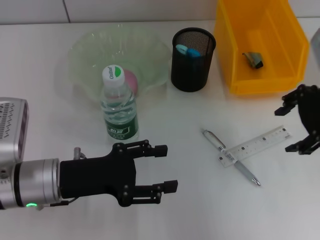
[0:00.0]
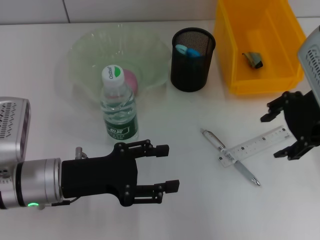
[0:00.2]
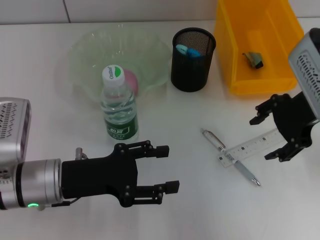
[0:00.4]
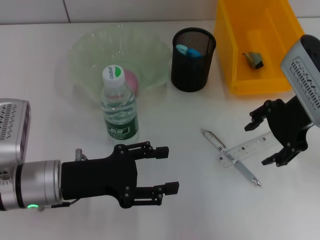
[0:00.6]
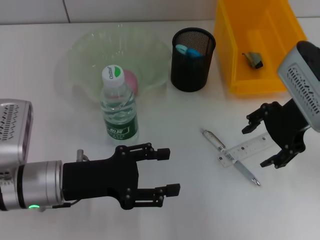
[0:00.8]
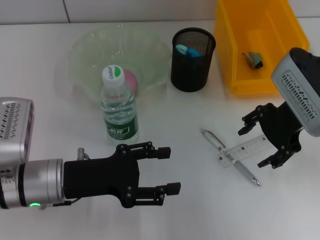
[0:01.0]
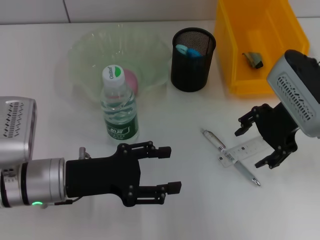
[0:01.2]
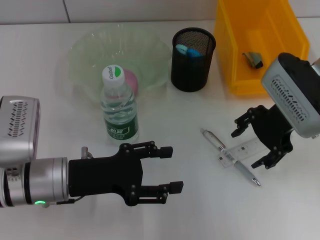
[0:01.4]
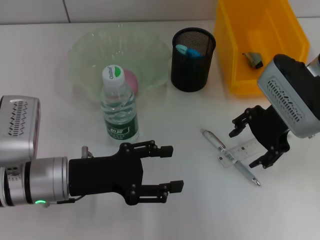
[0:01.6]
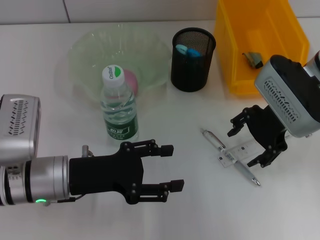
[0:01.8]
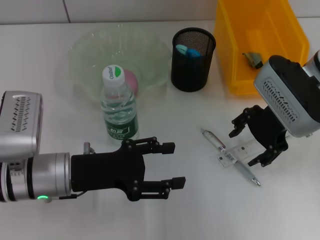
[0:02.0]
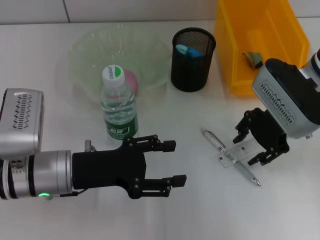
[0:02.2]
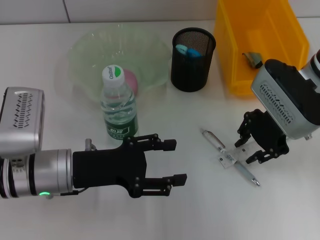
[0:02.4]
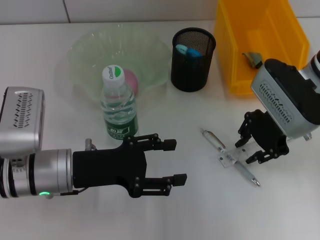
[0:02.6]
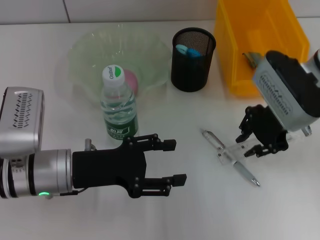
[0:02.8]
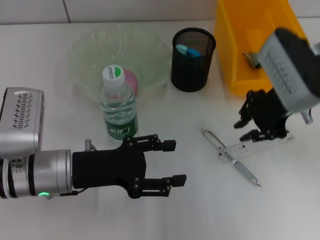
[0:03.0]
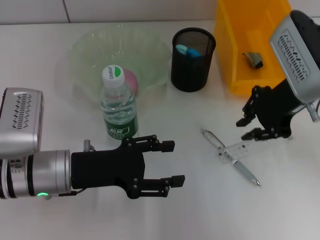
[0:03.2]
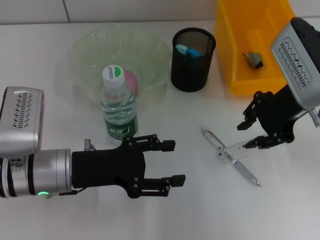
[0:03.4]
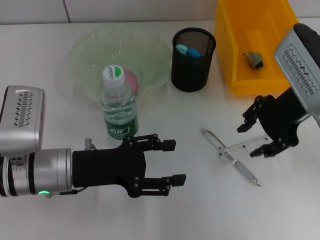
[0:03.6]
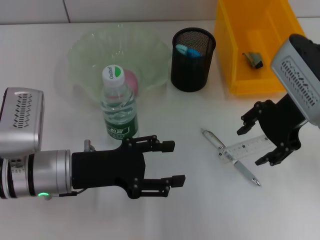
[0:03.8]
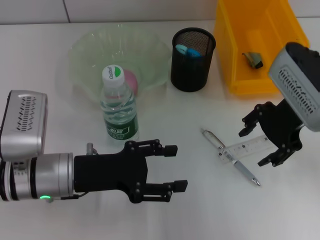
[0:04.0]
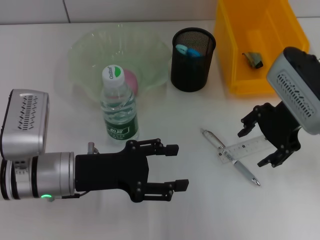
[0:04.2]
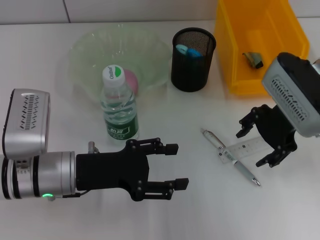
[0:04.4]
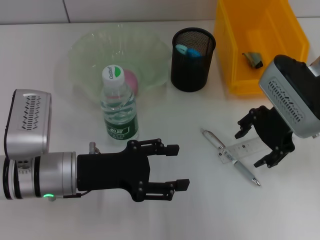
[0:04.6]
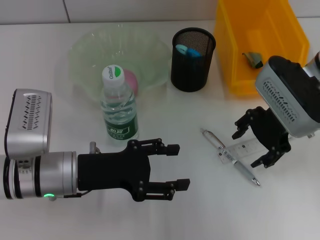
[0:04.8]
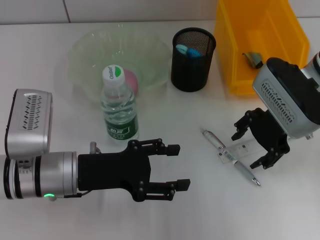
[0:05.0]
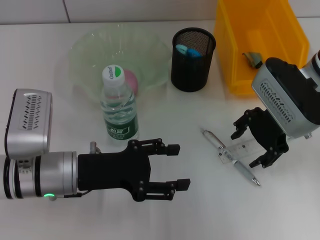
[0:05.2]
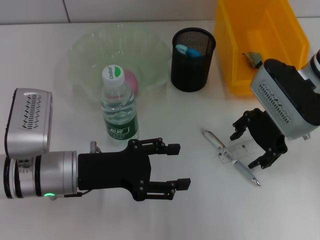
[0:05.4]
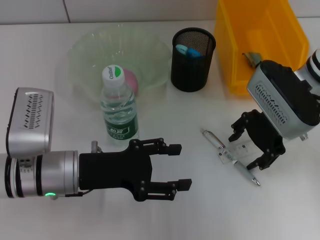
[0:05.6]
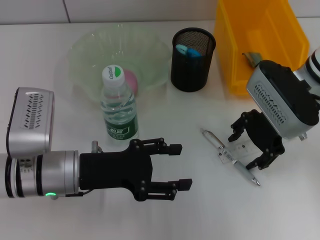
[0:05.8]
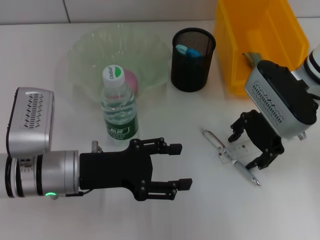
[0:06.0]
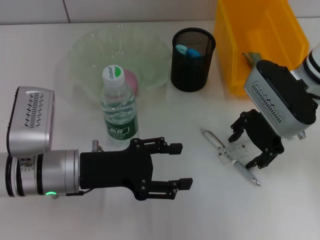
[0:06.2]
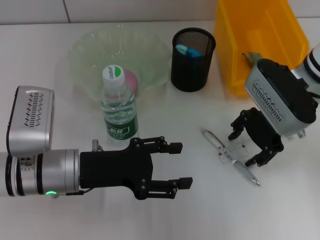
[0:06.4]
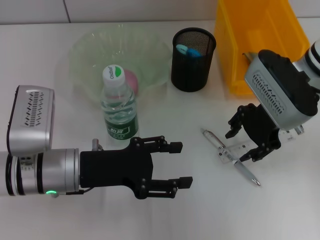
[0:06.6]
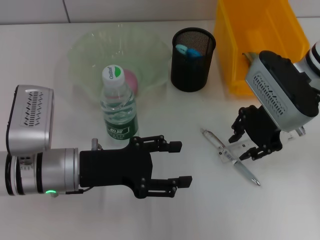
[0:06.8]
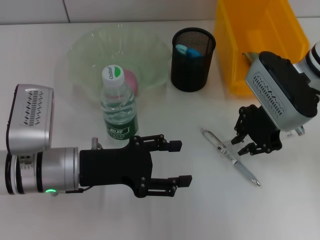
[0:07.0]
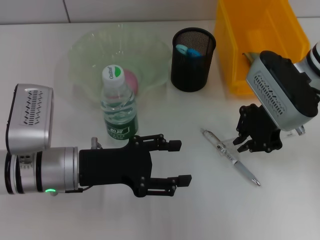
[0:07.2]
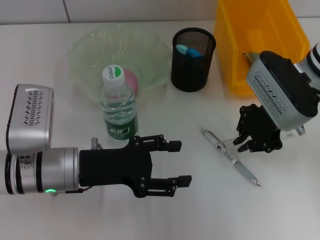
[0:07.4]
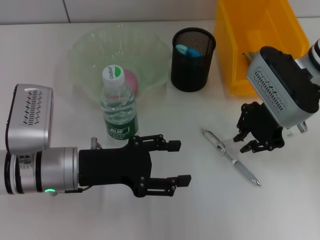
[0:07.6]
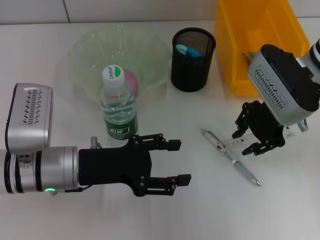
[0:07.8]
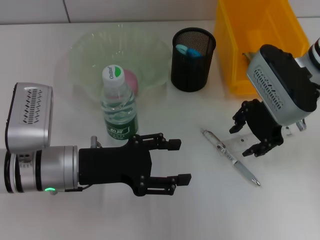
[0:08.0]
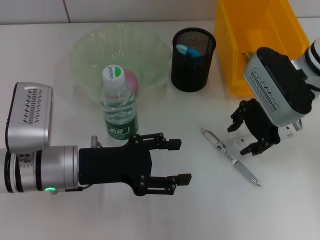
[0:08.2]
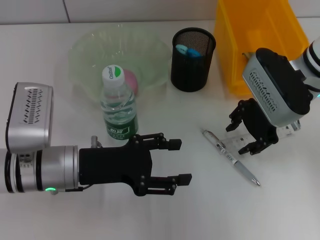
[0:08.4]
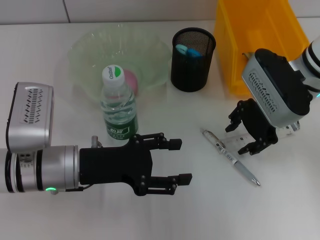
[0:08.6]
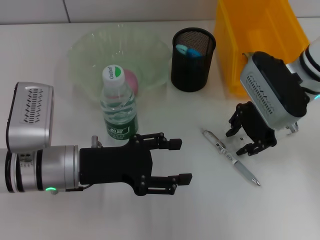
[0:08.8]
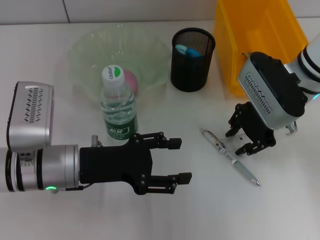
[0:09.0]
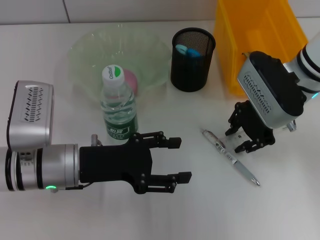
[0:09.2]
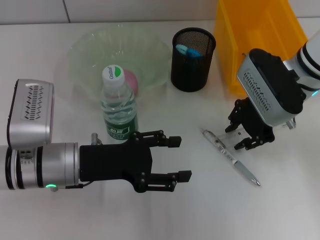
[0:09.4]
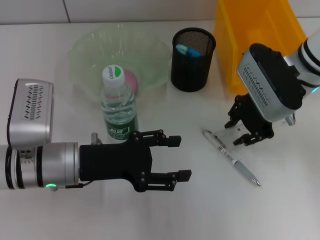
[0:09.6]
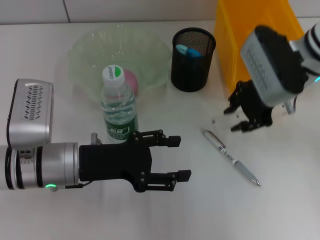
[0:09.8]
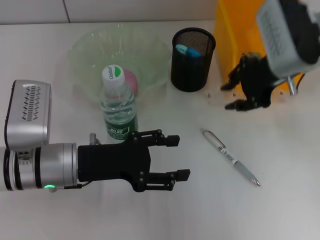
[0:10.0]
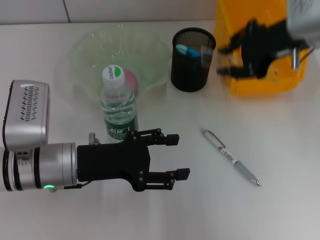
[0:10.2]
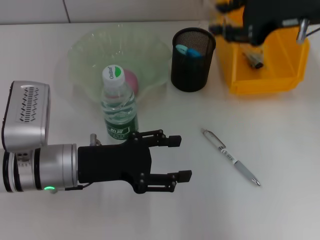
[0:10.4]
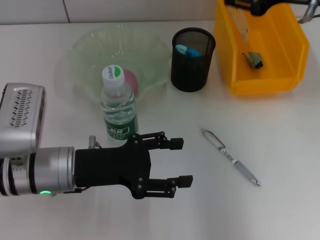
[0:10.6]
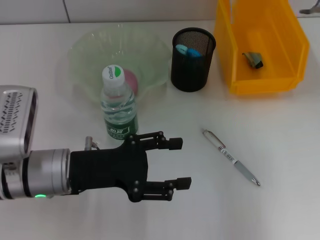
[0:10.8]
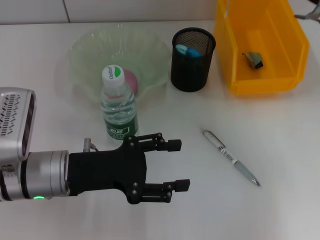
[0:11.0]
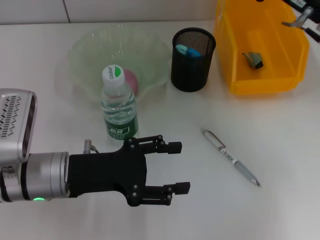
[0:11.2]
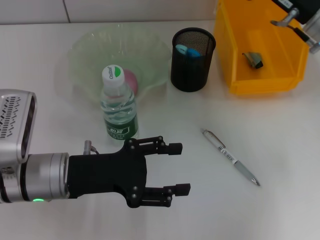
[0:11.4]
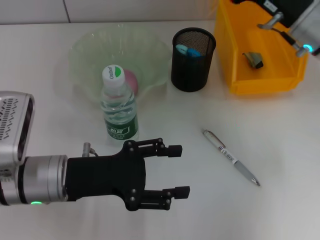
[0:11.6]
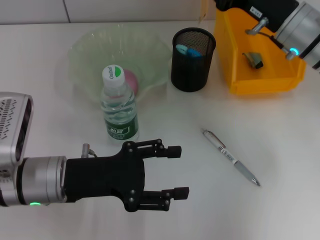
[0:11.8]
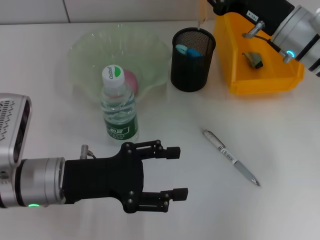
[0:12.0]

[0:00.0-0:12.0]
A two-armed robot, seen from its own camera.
Step, 0:00.0 to 0:09.2: Grab the ruler with the right hand.
0:00.0 to 0:01.6: The right gripper travels downward by approximately 5 cm.
0:01.6 to 0:03.0: The right gripper closes its fingers.
0:03.0 to 0:04.4: The right gripper opens up.
0:04.4 to 0:06.0: The grippers make only small movements.
0:06.0 to 0:07.6: The right gripper closes its fingers.
0:07.6 to 0:09.0: The right gripper opens its fingers.
0:09.0 to 0:10.4: The right gripper goes roughly 10 cm upward.
0:10.4 to 0:12.0: The right gripper shifts roughly 10 cm downward.

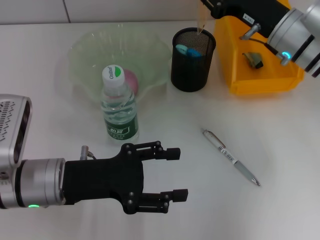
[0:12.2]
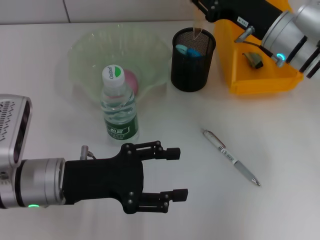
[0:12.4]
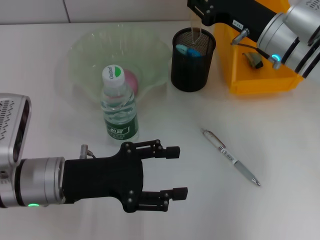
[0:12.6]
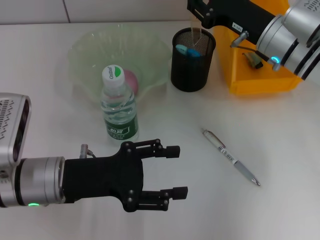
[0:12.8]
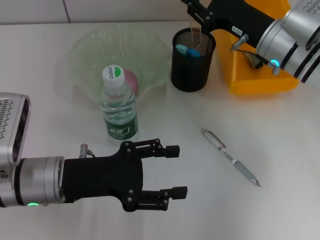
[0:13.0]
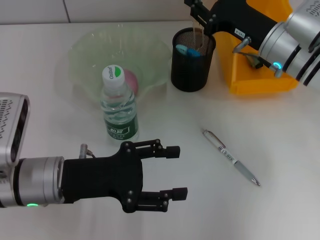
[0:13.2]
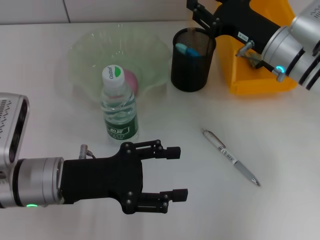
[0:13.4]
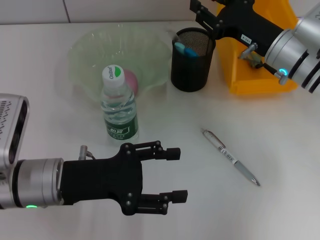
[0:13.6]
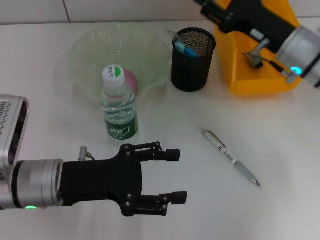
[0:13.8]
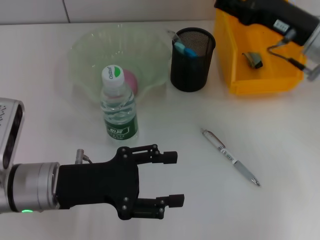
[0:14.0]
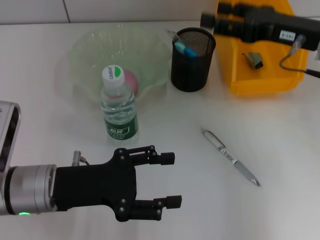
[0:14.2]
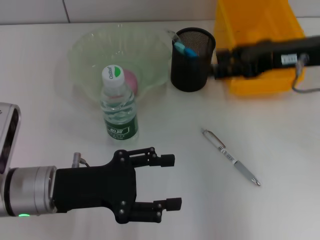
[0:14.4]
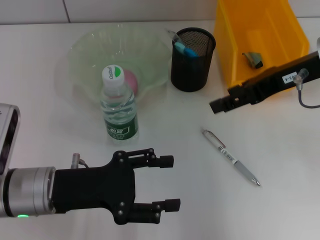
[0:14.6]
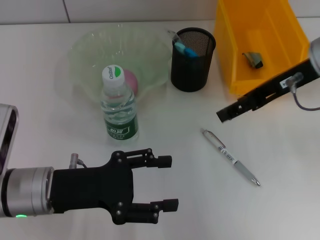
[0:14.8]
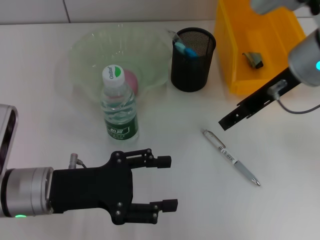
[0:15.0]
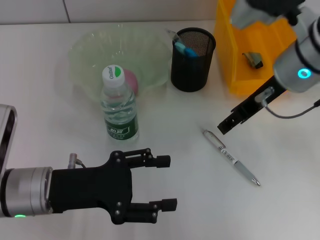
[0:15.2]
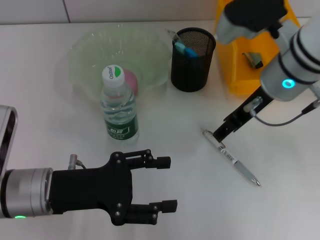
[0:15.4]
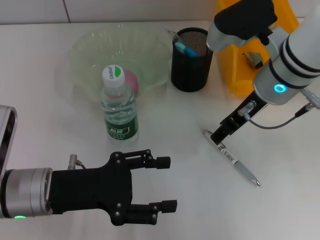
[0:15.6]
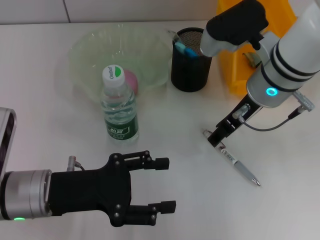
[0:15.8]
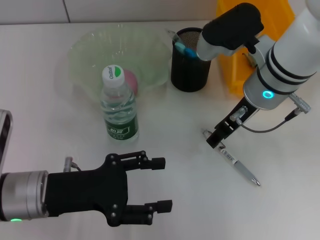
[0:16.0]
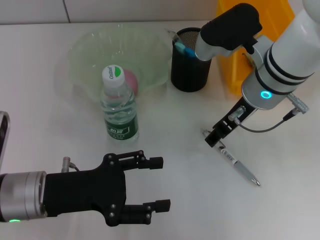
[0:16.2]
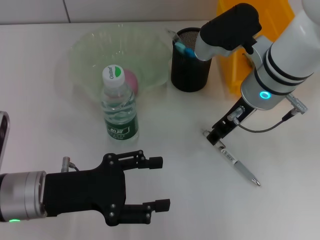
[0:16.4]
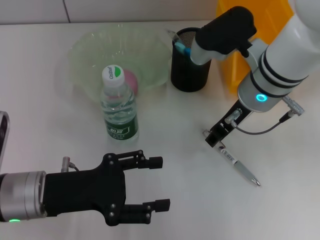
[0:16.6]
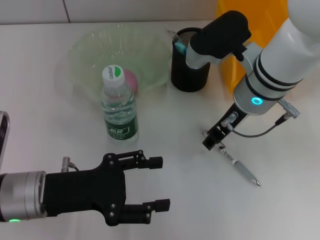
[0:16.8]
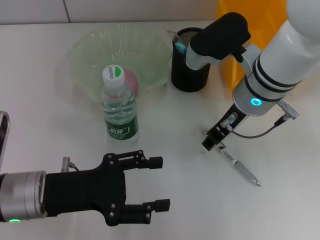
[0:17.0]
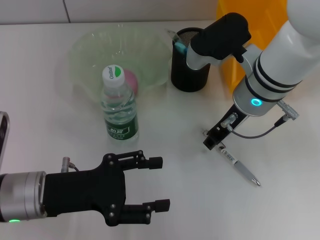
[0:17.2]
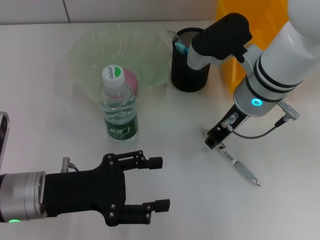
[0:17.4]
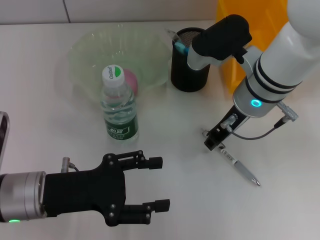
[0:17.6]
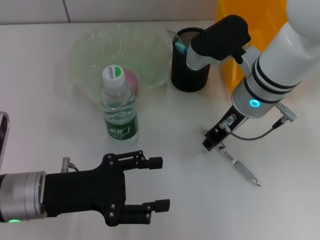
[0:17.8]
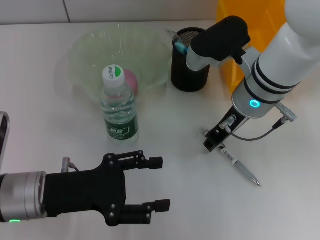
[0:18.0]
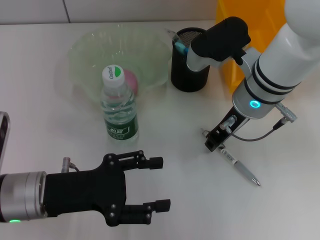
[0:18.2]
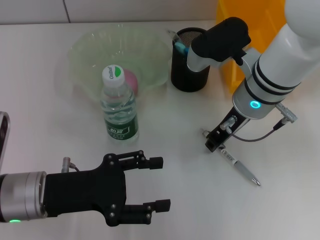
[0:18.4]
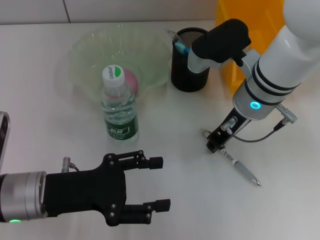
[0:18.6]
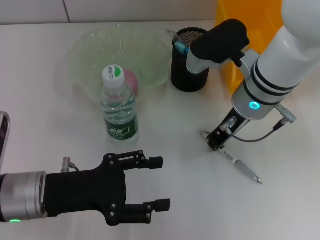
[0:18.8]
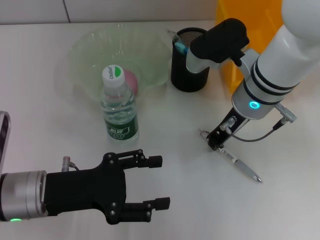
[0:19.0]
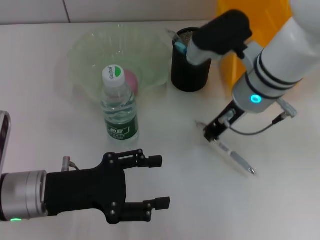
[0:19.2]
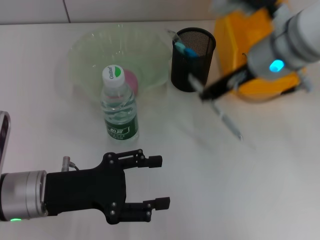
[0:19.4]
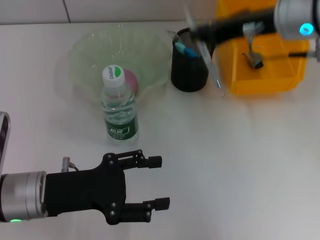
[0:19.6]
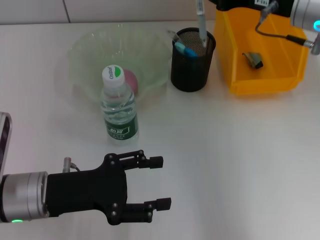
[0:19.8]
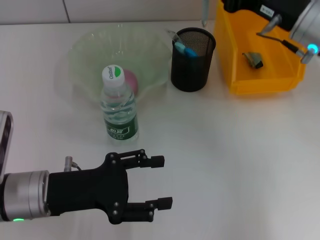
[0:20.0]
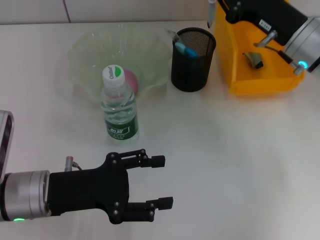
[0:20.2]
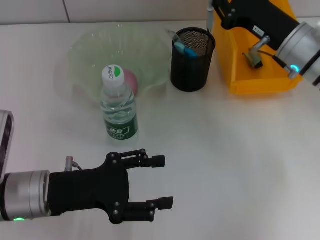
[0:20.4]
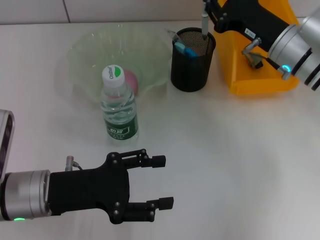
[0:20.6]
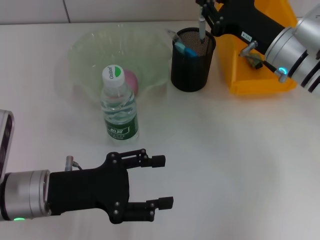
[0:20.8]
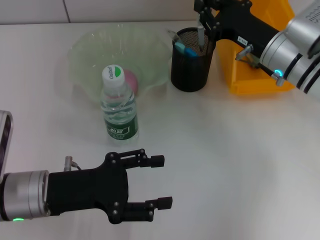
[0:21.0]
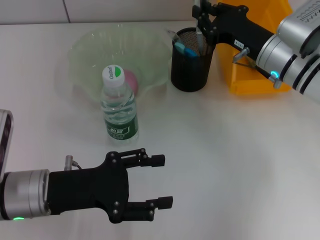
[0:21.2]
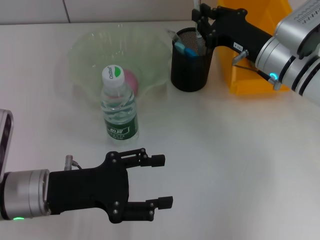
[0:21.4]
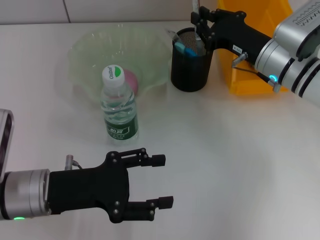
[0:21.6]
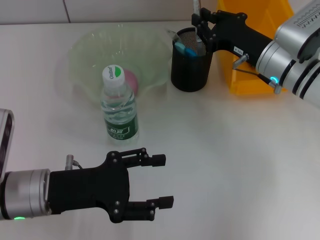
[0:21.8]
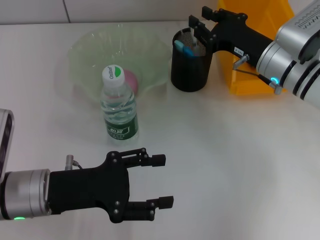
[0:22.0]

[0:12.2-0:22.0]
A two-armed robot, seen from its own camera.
Step, 0:12.2 to 0:14.2: Place the ruler into the pen holder with the right hand.
Step, 0:14.4 to 0:18.8: Grab the gray spring-action pen with the right hand.
0:12.2 to 0:13.6: The grippers move only a little.
0:13.6 to 0:15.0: The right gripper heads upward, covering about 10 cm, and opens.
0:15.0 to 0:16.4: The right gripper moves downward and to the left, roughly 10 cm.
0:16.4 to 0:17.8: The right gripper closes its fingers.
0:17.8 to 0:19.2: Neither gripper changes place.
0:19.2 to 0:20.6: The right gripper is displaced to the right by approximately 10 cm, and moves about 10 cm upward and comes back.
0:20.6 to 0:22.0: The grippers stay close to where they were, moving slightly.
